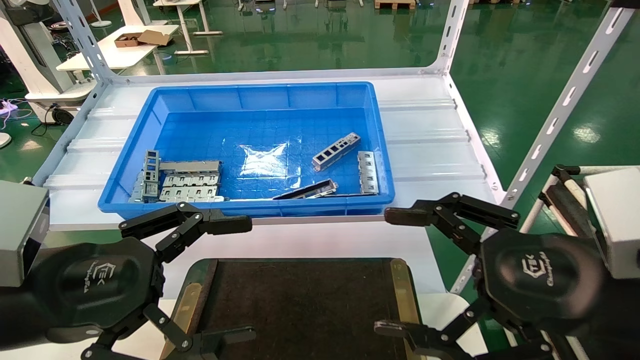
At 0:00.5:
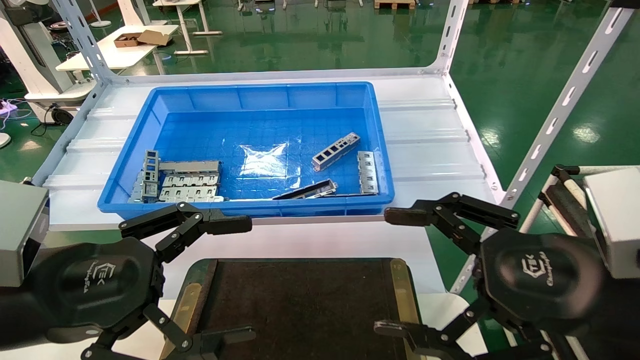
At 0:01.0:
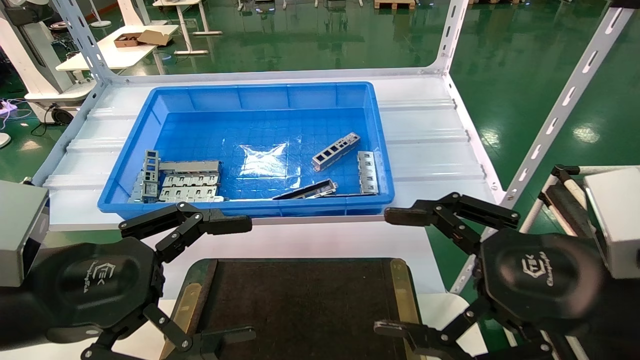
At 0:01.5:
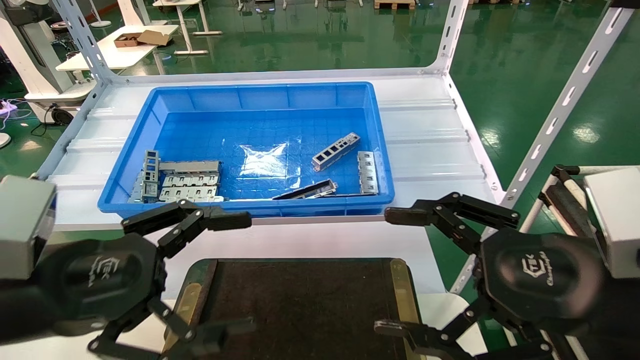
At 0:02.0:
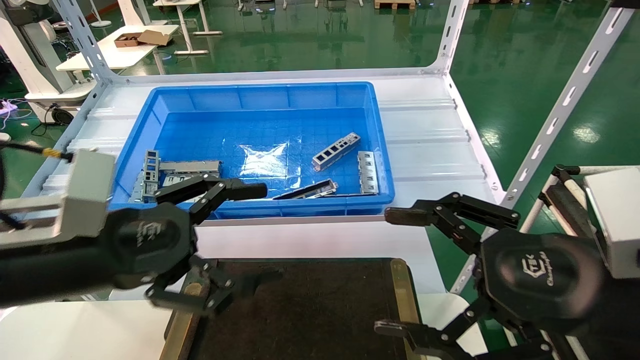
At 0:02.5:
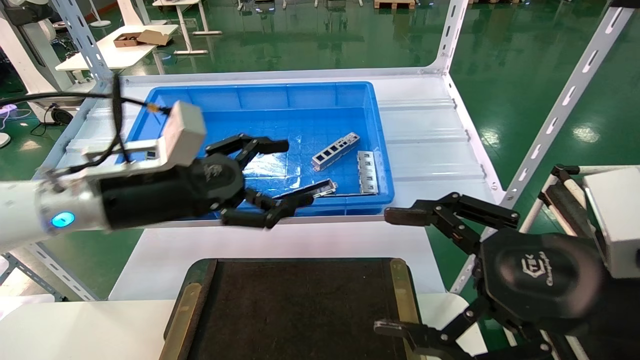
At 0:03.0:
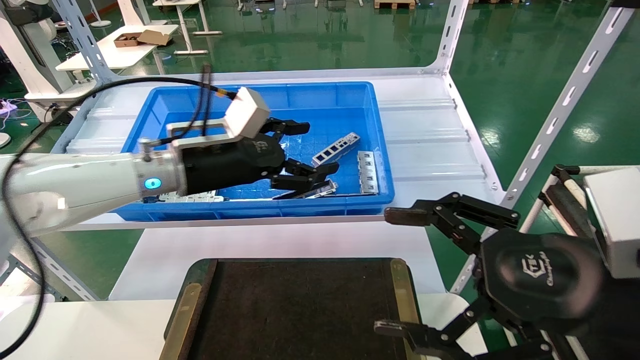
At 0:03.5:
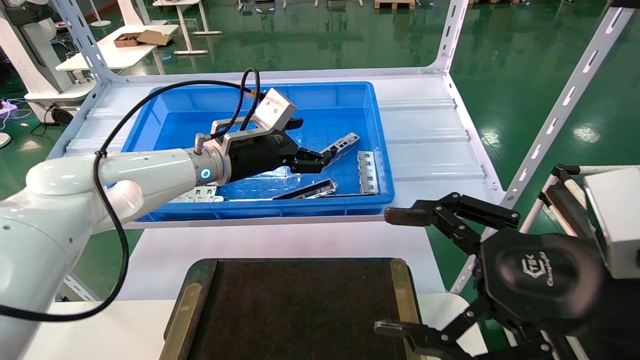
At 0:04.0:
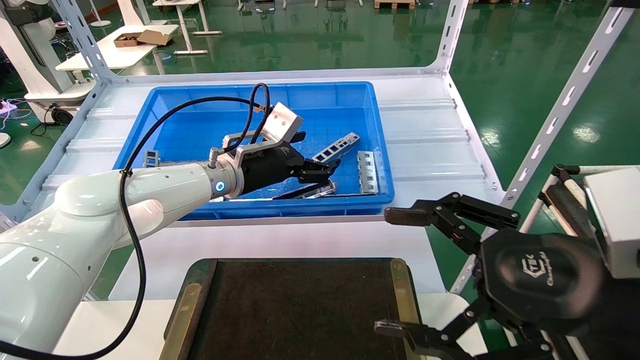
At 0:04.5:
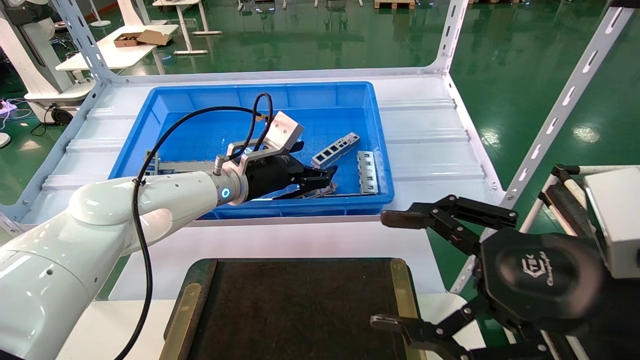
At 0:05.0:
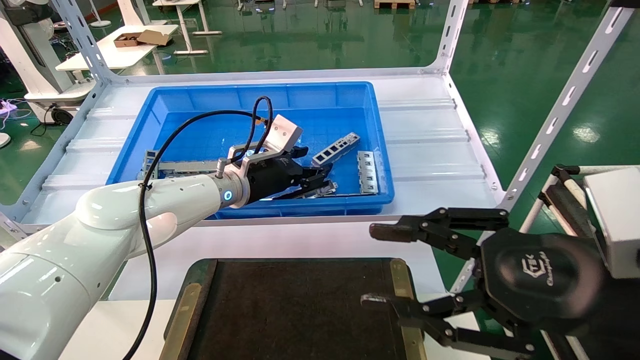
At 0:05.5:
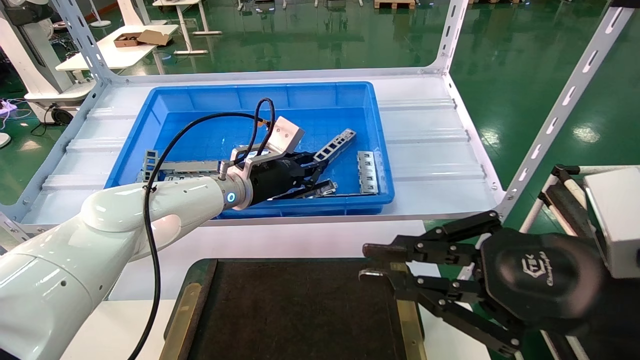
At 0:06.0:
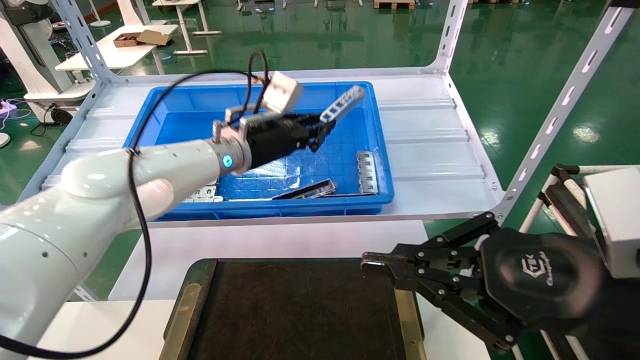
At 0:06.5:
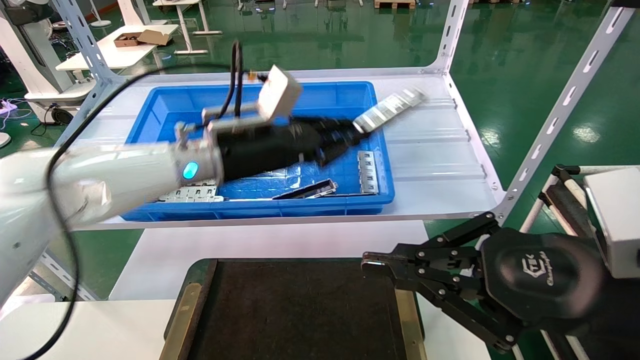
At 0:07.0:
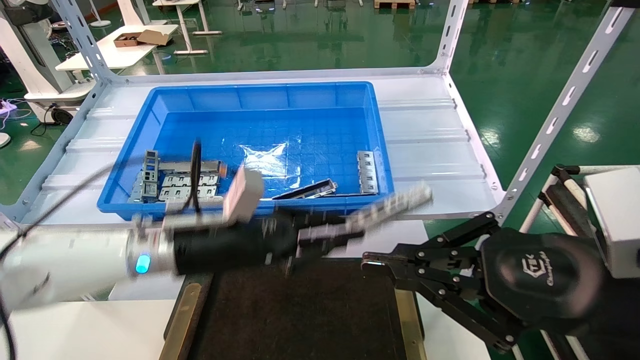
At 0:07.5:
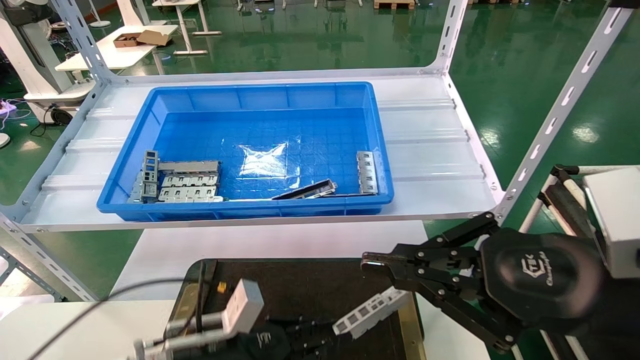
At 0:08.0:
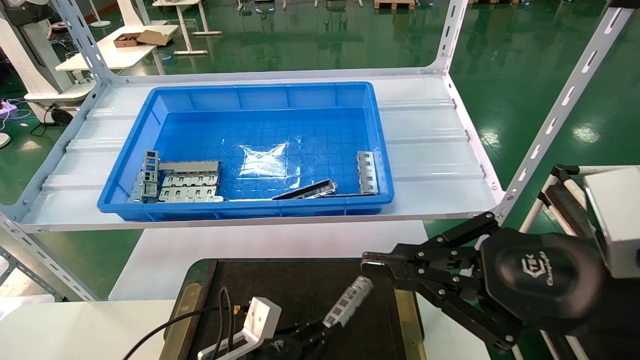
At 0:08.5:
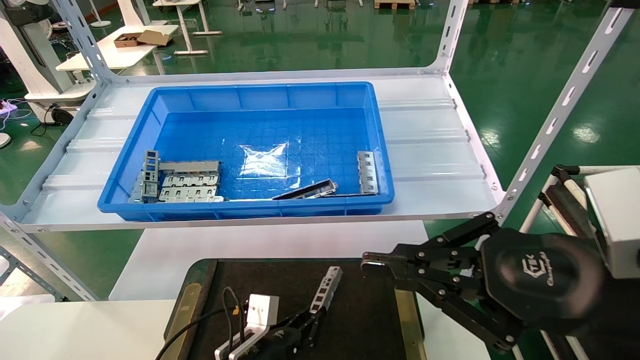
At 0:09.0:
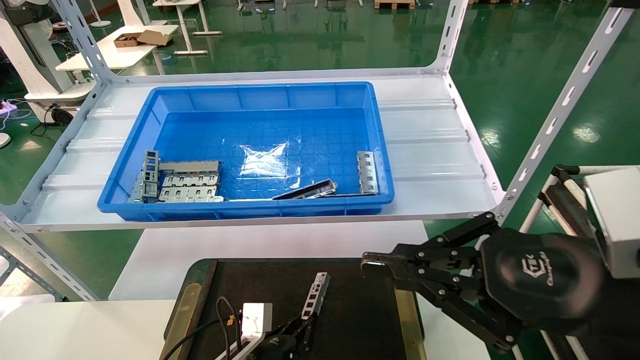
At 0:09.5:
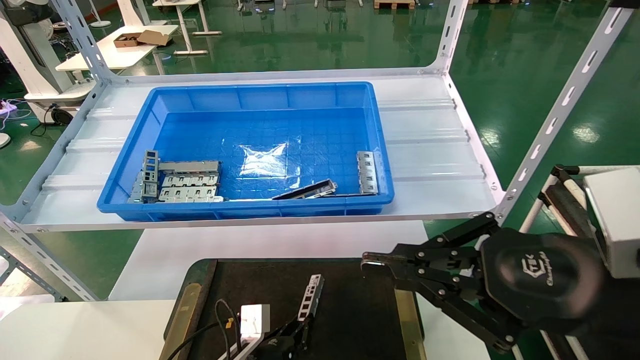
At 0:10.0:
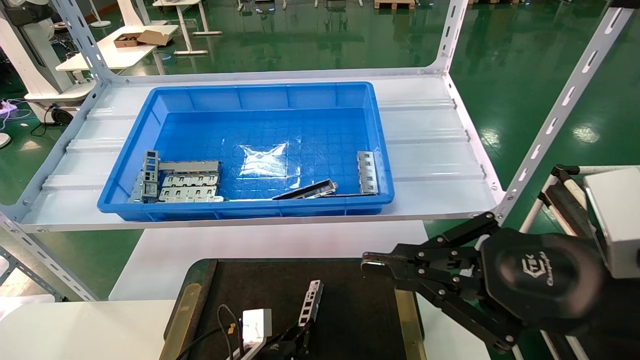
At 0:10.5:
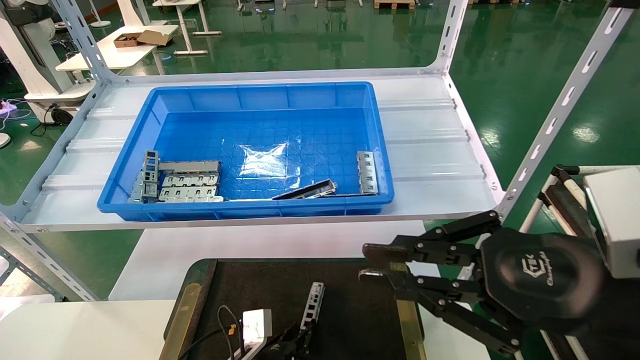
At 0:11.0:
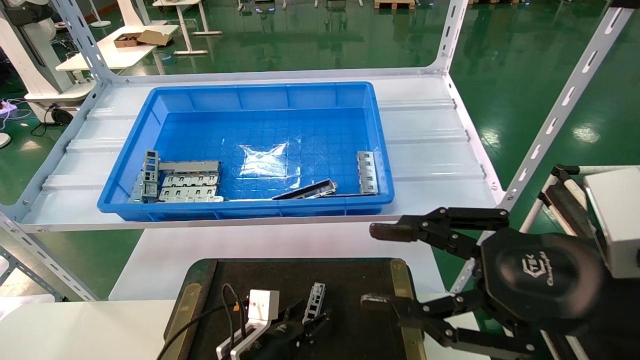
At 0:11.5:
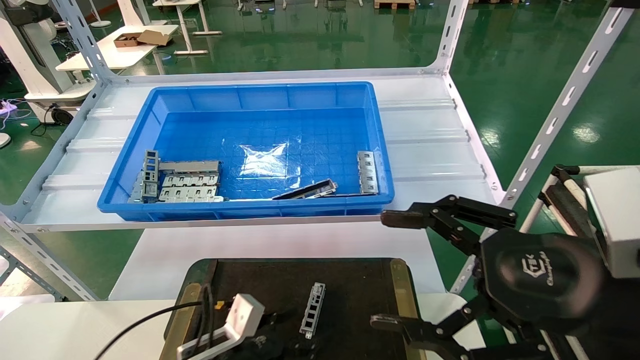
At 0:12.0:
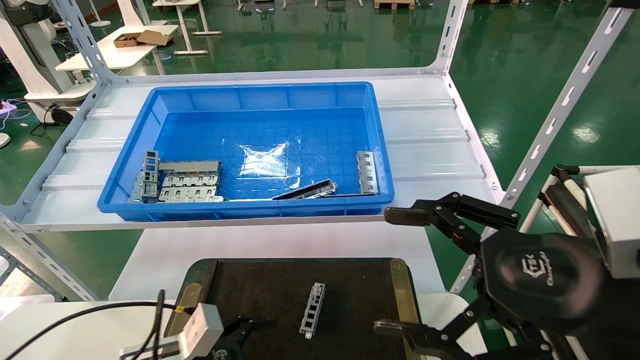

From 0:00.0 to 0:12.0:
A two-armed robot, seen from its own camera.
Task of the whole recording: Grasp the part with one hand and place it on the black container.
Step, from 0:02.0 to 0:05.5: Pick up the front USB bracket from the feeding area.
Step, from 0:06.0 to 0:10.5: Place the front USB bracket into the box.
From 0:00.0 to 0:02.0: The left gripper is displaced forward by roughly 5 cm.
From 0:02.0 to 0:04.0: The left gripper is displaced forward and to the right by some 25 cm.
From 0:04.0 to 0:06.0: The right gripper closes its fingers; the left gripper closes its fingers.
From 0:06.0 to 0:08.0: The left gripper goes roughly 35 cm downward and backward.
From 0:08.0 to 0:10.0: The left gripper goes roughly 5 cm downward.
From 0:10.0 to 0:12.0: The left gripper shifts some 15 cm to the left, upward and backward, and opens. Meanwhile the right gripper opens.
